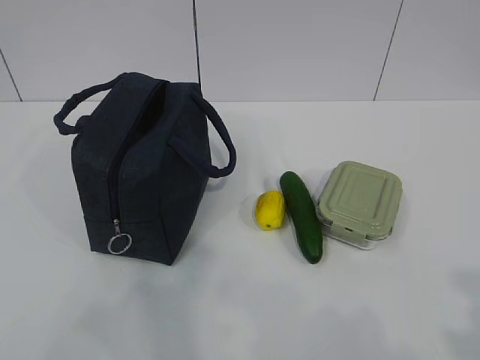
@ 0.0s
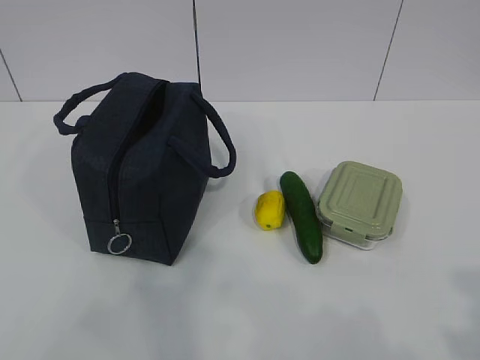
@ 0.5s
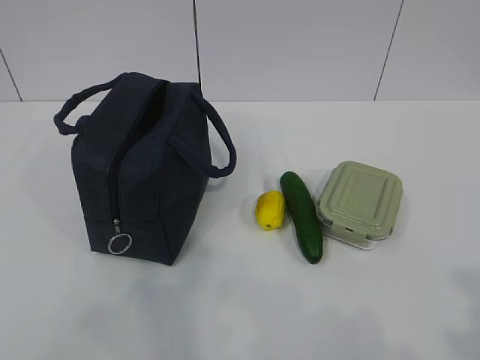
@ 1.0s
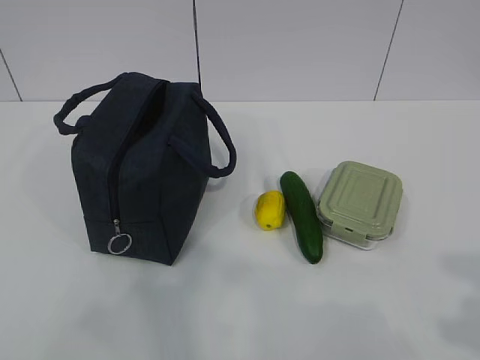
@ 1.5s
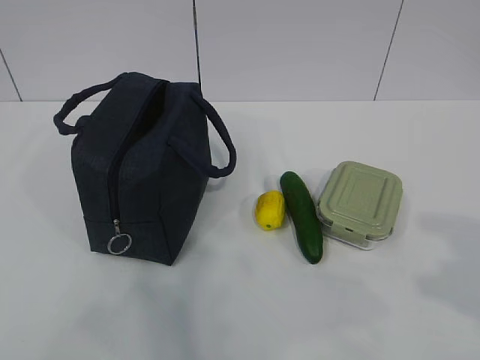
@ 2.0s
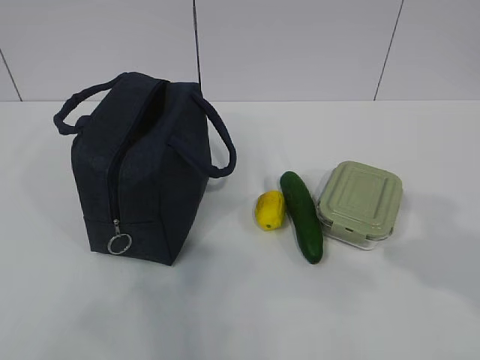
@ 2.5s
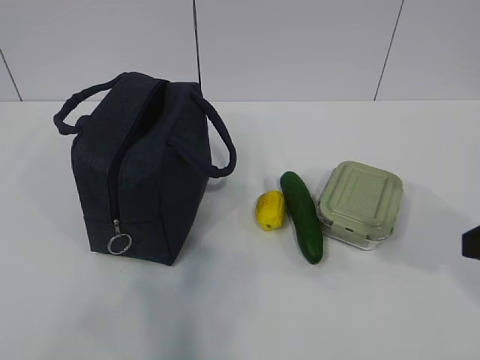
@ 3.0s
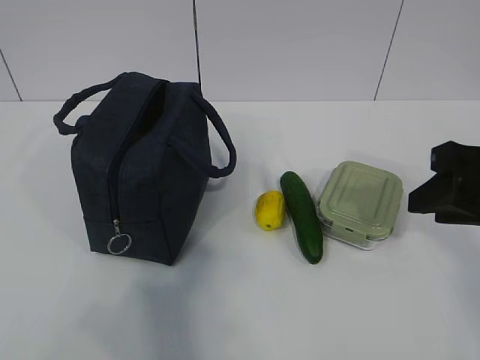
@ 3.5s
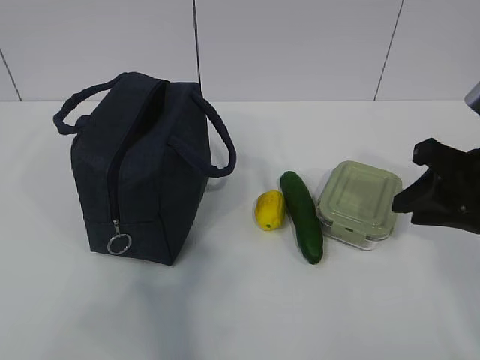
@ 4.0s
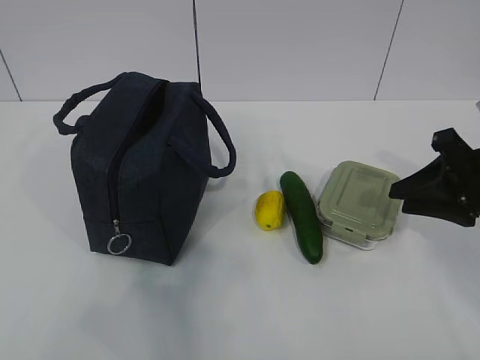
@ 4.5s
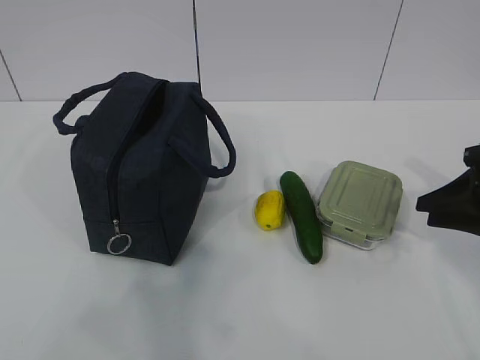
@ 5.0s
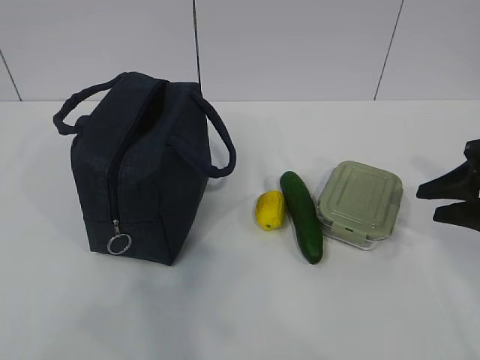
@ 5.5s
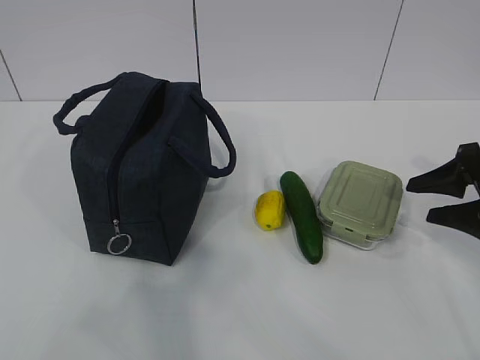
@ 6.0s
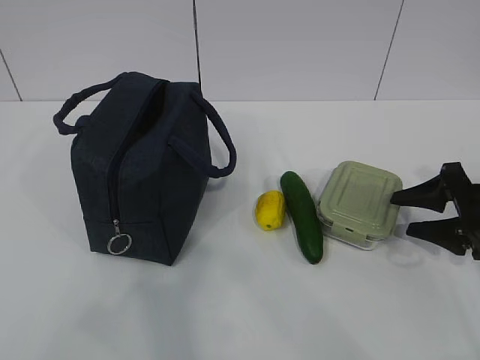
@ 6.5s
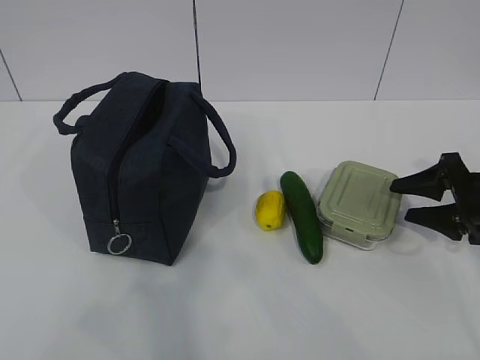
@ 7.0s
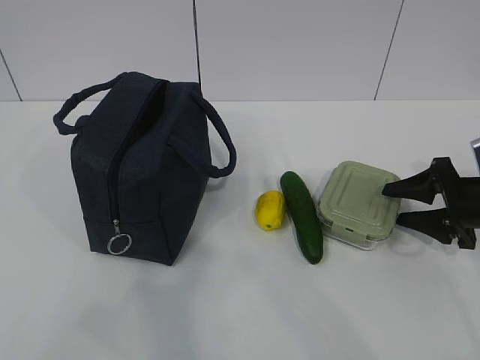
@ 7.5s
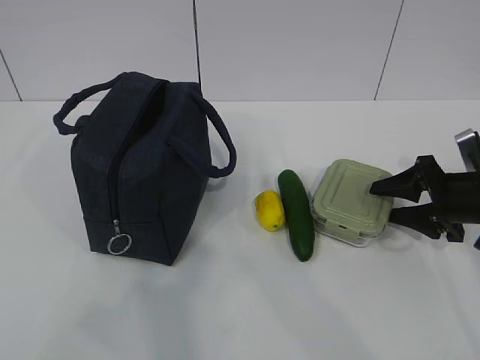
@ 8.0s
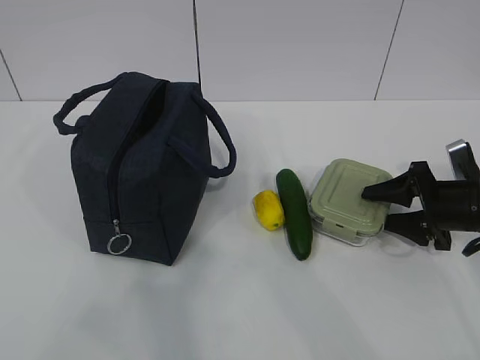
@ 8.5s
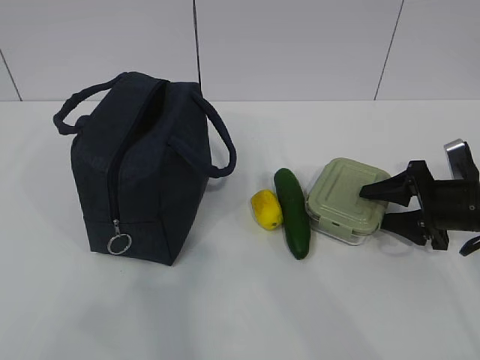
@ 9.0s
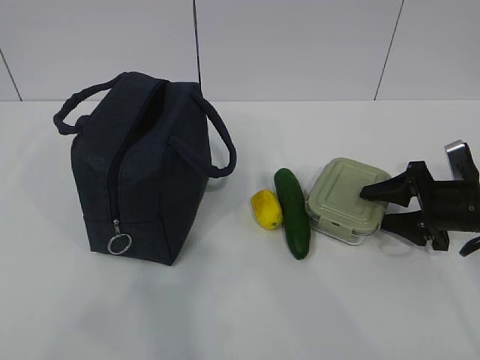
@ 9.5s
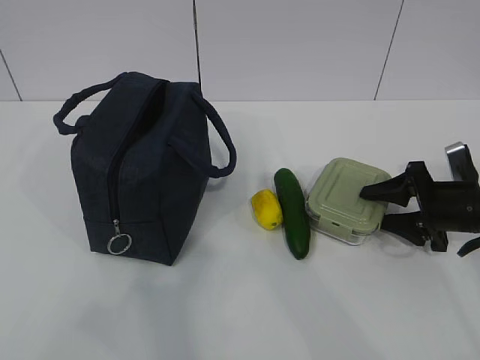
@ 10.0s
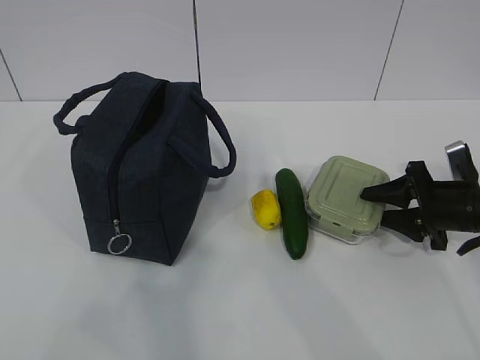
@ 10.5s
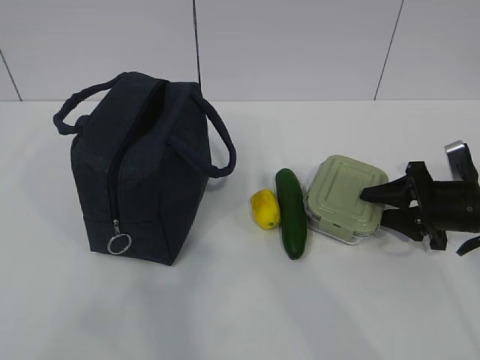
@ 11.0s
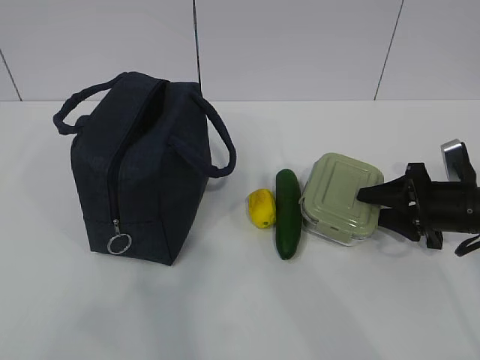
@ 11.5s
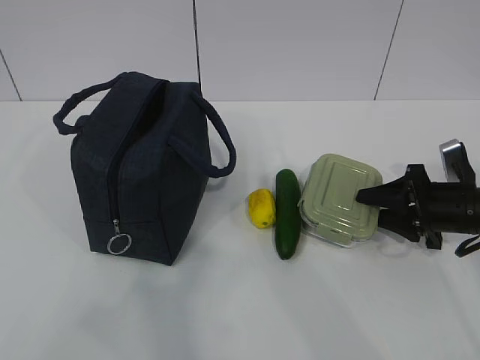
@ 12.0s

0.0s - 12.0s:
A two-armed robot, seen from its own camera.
Step, 0.0s - 9.0s: Grab the lunch box with your right hand.
2.0s - 4.0s: The right gripper travels forward by approximately 20 cm.
4.0s - 6.0s: The right gripper is displaced to the right and downward by some 10 cm, and opens its fingers.
6.0s - 8.0s: The right gripper goes about 5 cm downward.
8.0s - 12.0s: The grippers move only a little.

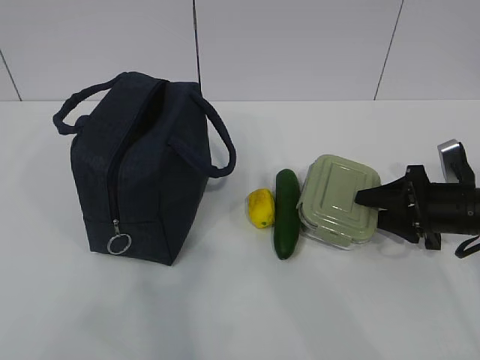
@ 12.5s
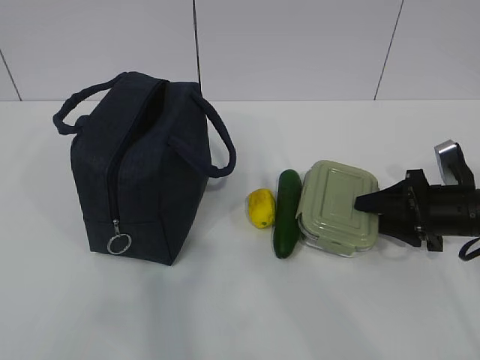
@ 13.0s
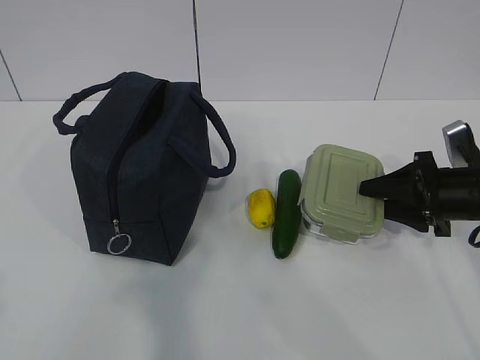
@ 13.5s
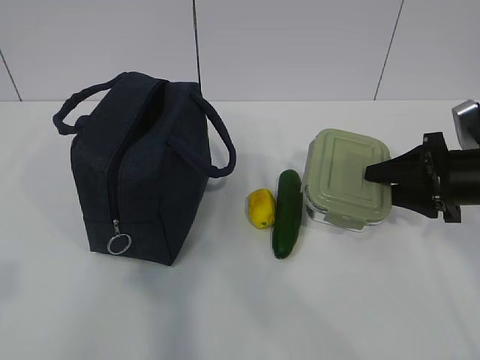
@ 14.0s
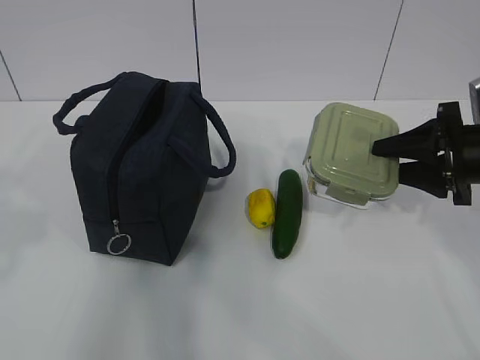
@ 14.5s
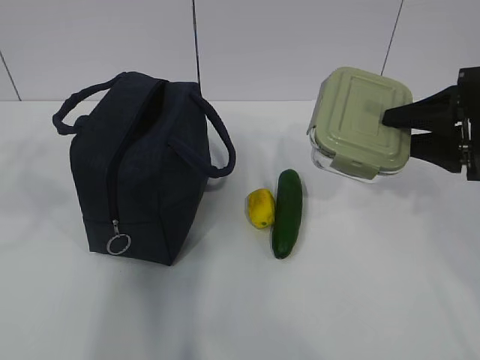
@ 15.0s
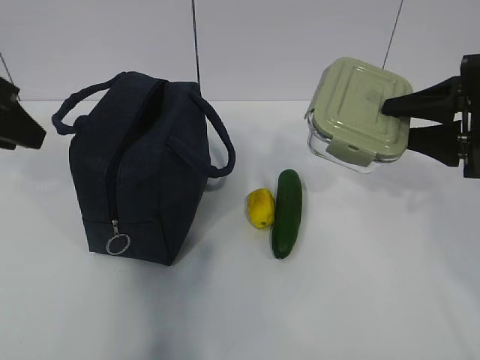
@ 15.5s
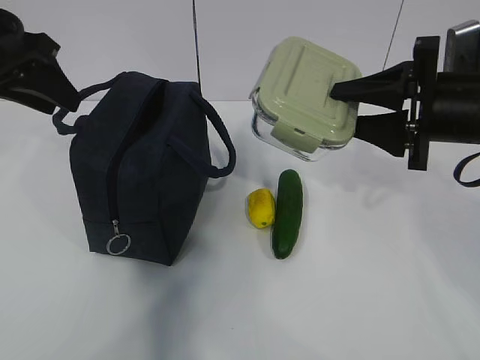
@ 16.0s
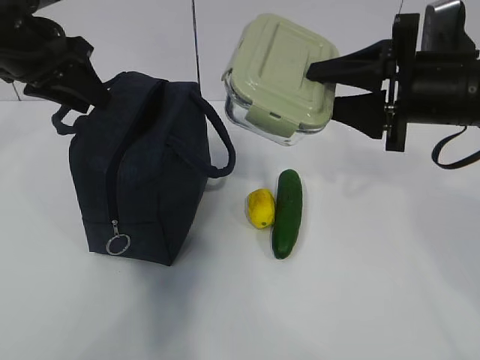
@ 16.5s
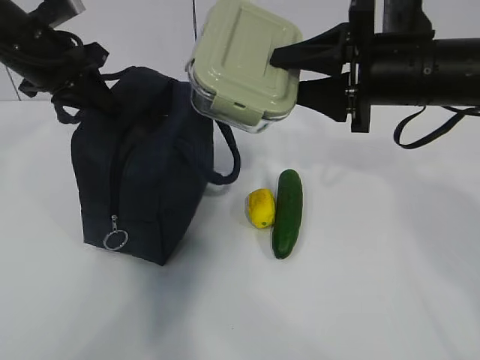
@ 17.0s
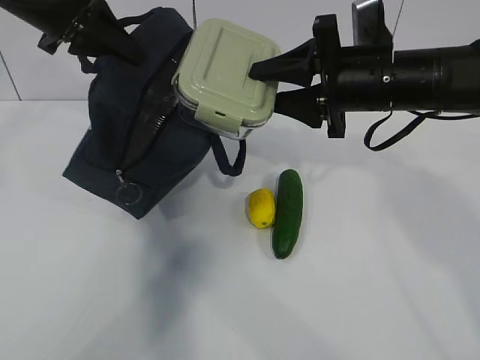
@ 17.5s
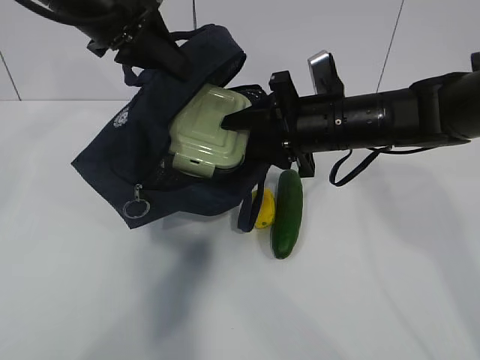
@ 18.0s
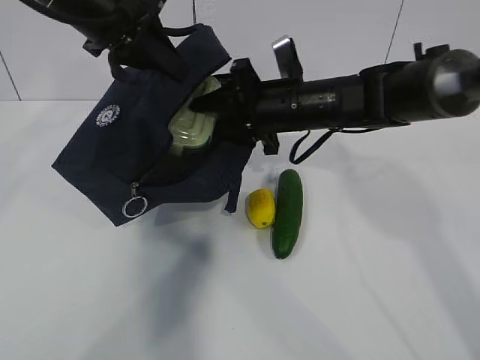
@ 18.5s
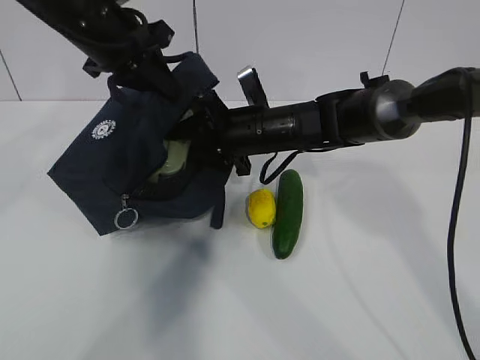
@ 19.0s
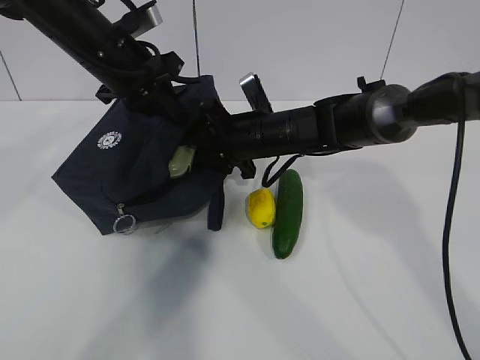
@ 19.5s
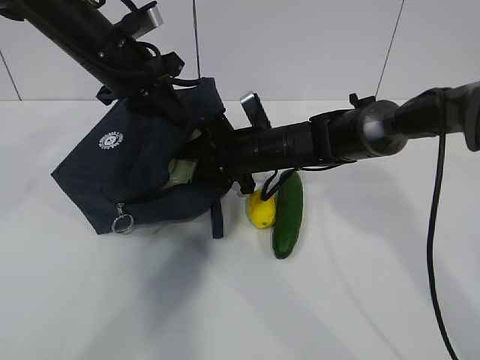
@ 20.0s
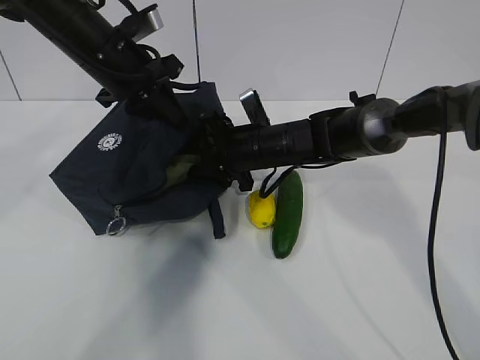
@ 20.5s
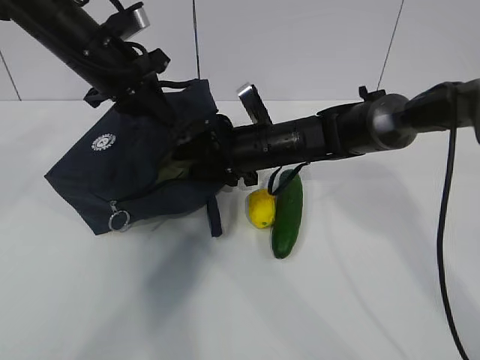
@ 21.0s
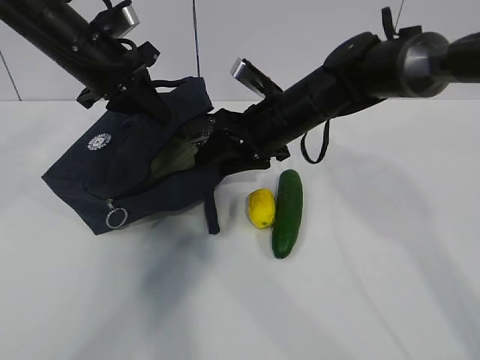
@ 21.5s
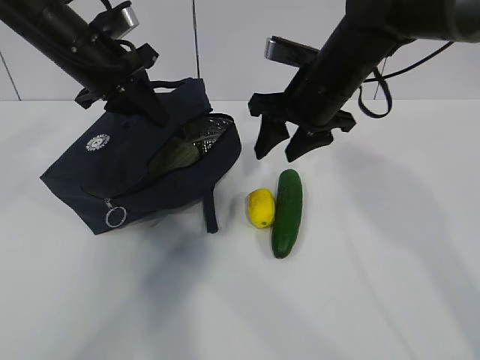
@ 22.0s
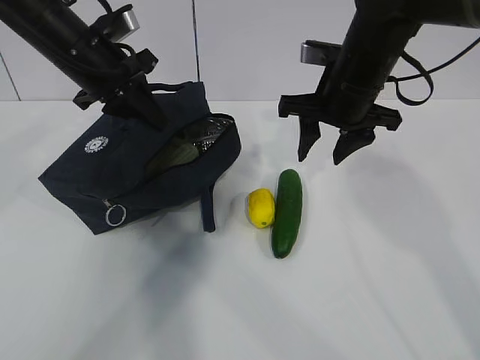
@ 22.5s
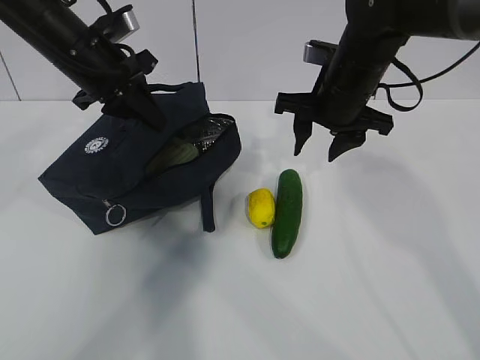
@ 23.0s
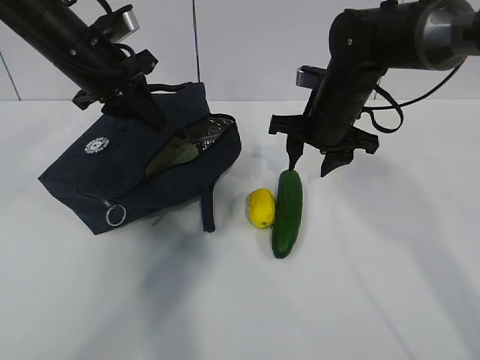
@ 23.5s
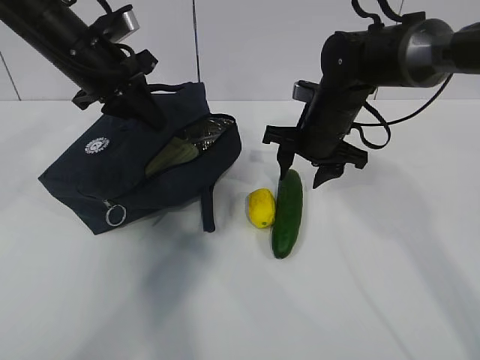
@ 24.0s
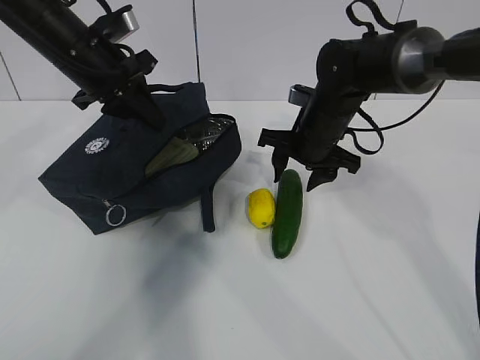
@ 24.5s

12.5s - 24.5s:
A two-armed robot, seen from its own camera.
Step, 15.0s - 17.0s: Place it into the bag with your right hand.
Step, 17.5s - 21.0s: Grab the cucumber with your right hand.
Step, 21.5s - 23.0s: Place it into the bag with your right hand.
12.5s - 14.5s: The right gripper travels upward by some 10 cm, while the left gripper shifts about 10 cm forward.
14.5s - 16.5s: The right gripper travels to the left and upward by about 10 cm; the left gripper goes some 25 cm forward.
16.5s - 18.5s: The left gripper is displaced to the right by about 10 cm, and closes up, while the right gripper travels to the left, forward and downward by about 15 cm.
18.5s - 20.5s: Both grippers travel together downward, roughly 10 cm.
20.5s - 22.5s: The right gripper is displaced upward and to the right by some 15 cm.
22.5s - 24.5s: The right gripper travels downward by approximately 10 cm.

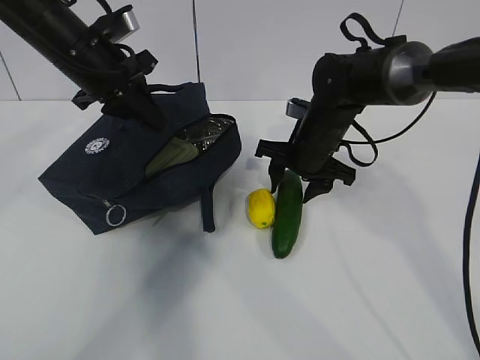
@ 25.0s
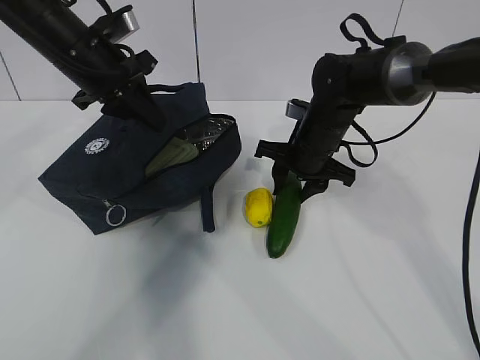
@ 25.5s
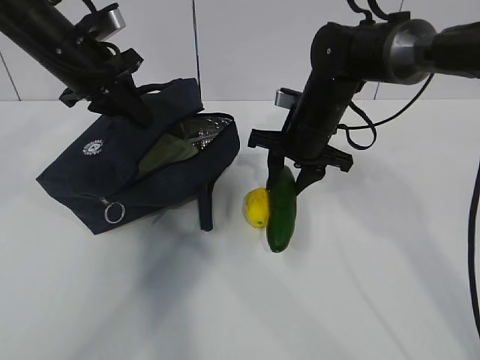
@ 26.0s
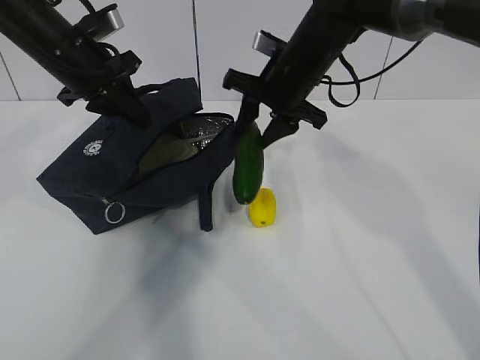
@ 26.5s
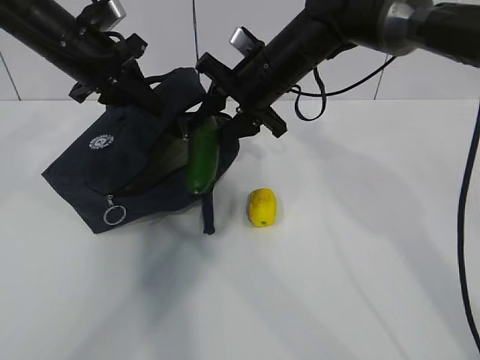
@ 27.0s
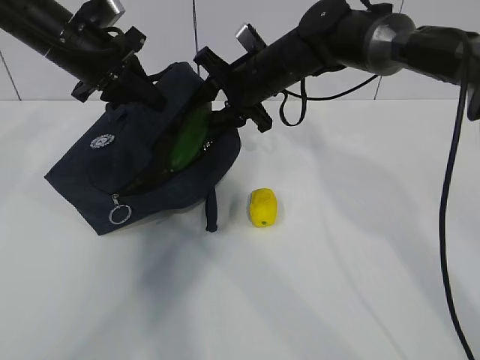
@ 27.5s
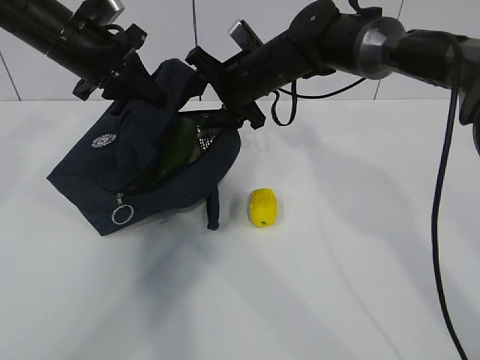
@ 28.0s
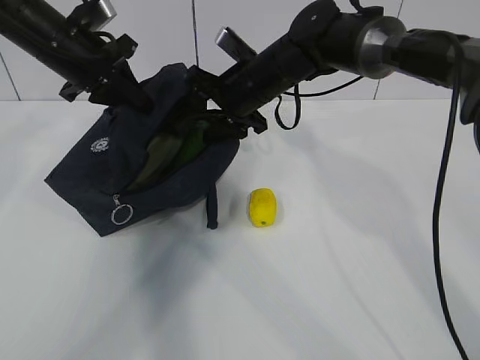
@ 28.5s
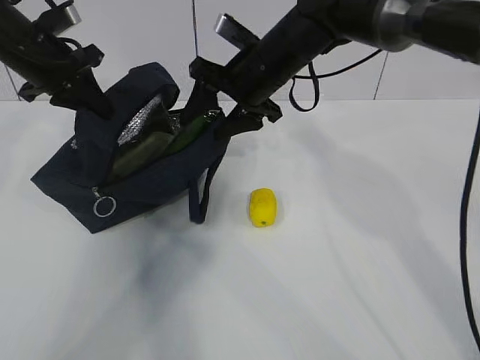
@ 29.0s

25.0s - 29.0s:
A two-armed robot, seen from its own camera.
Step, 25.0s - 27.0s: Grab the lemon with your right hand.
Step, 27.5s - 28.5s: Secure the lunch bag with your left hand.
25.0s - 27.0s: The right gripper is displaced upward and to the left by roughly 10 cm.
27.0s - 29.0s: The right gripper opens, while the left gripper travels to the left by approximately 5 cm.
